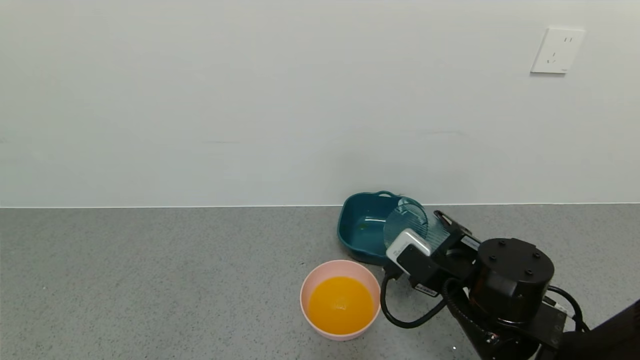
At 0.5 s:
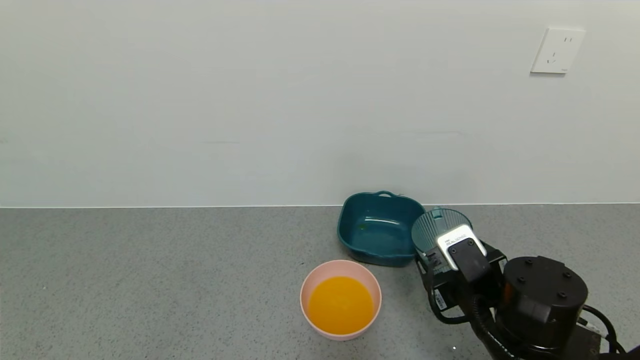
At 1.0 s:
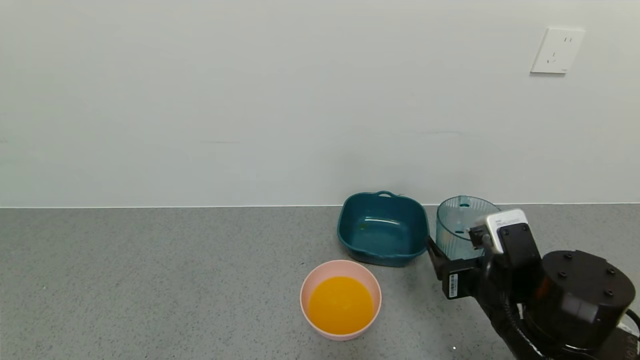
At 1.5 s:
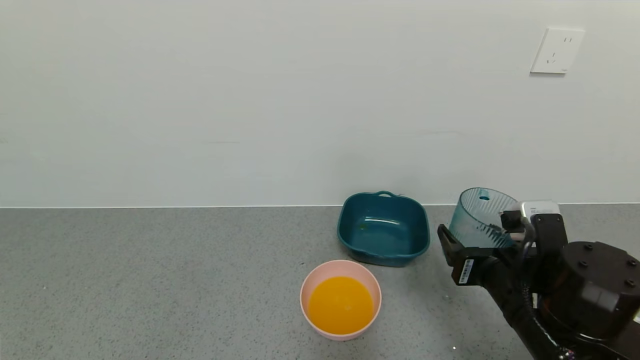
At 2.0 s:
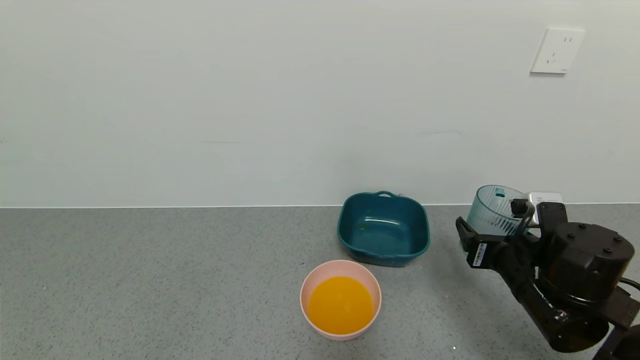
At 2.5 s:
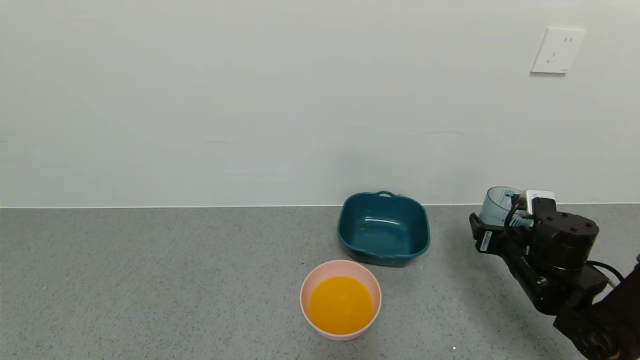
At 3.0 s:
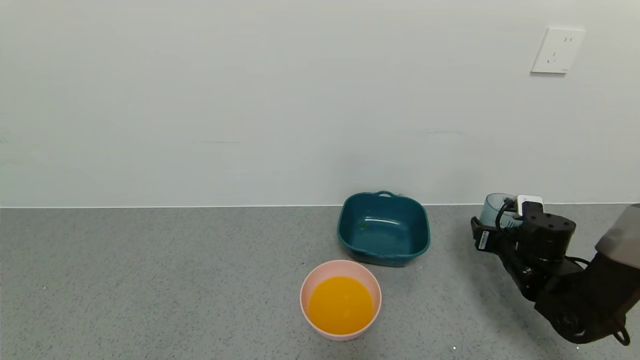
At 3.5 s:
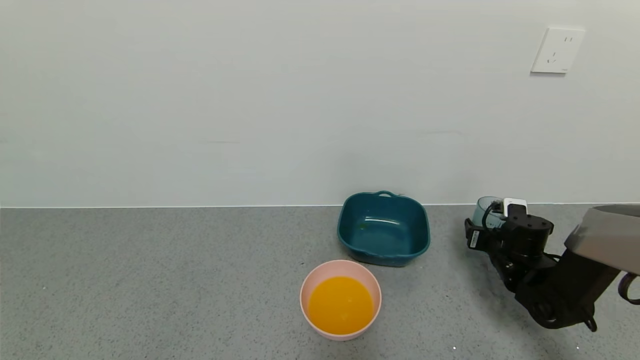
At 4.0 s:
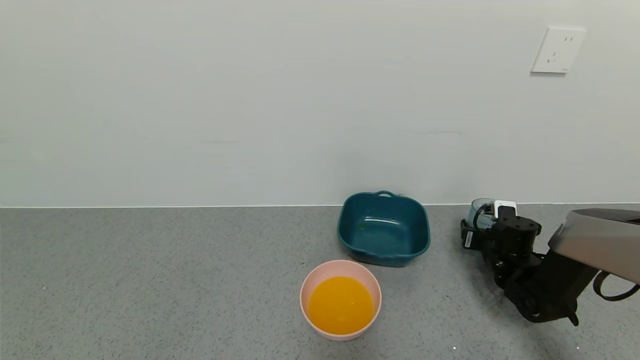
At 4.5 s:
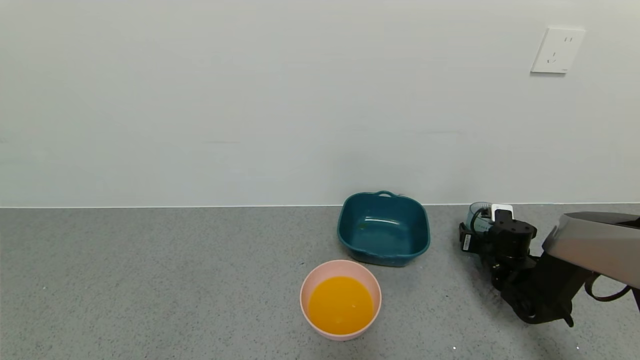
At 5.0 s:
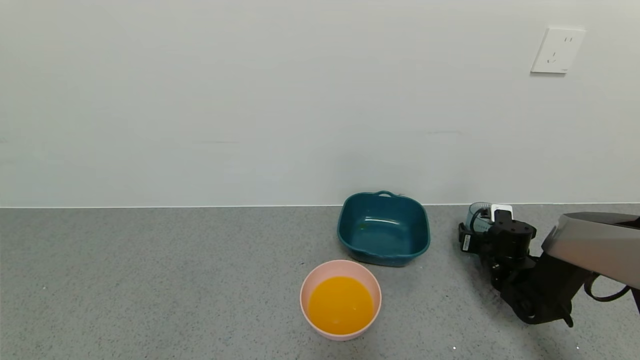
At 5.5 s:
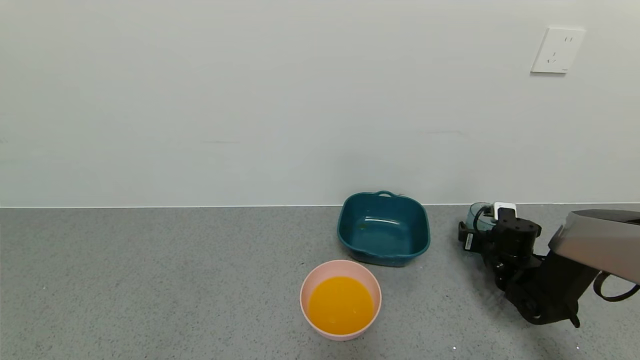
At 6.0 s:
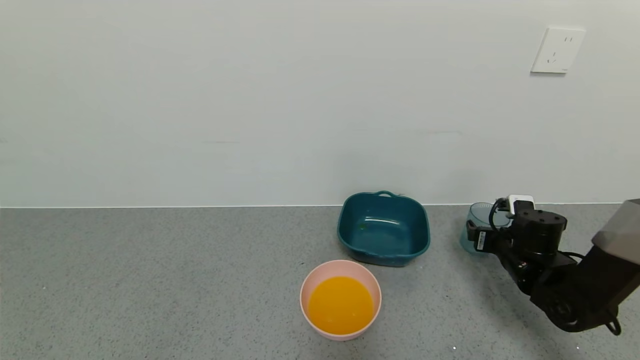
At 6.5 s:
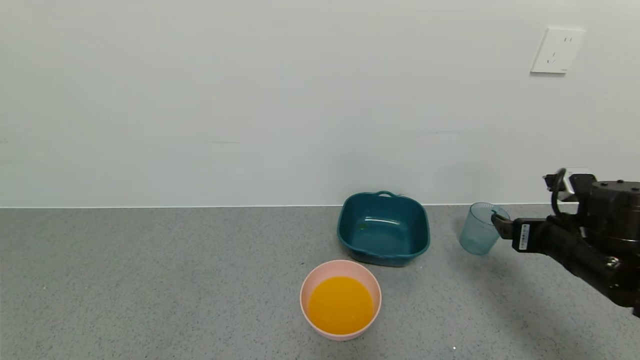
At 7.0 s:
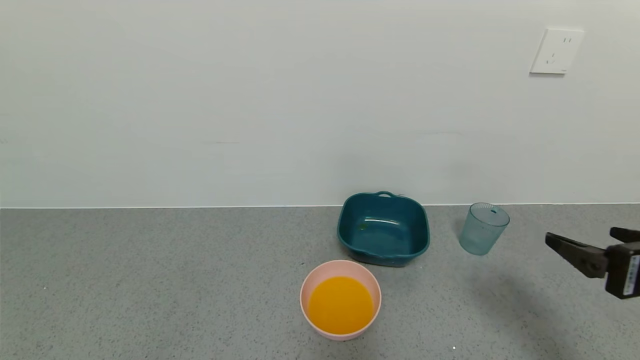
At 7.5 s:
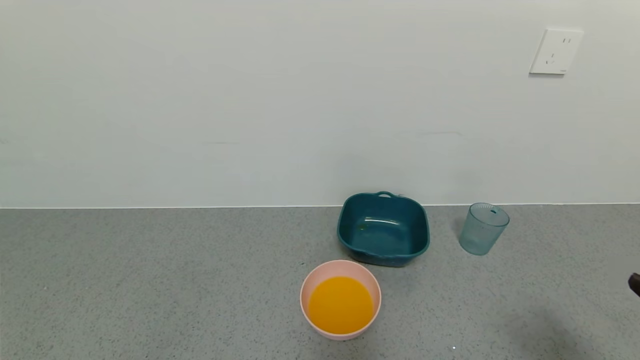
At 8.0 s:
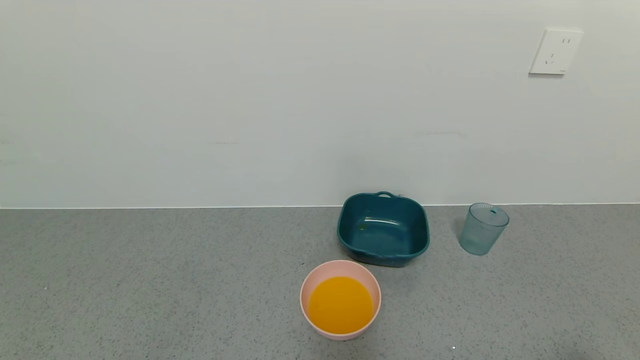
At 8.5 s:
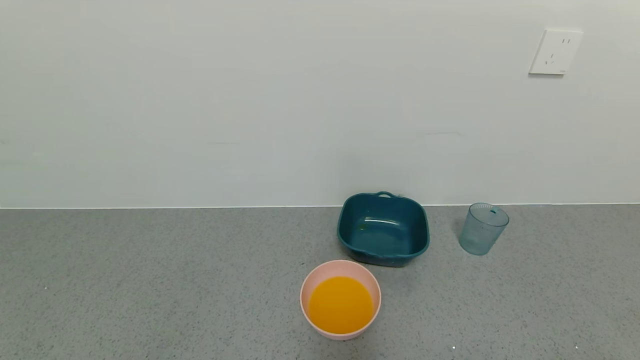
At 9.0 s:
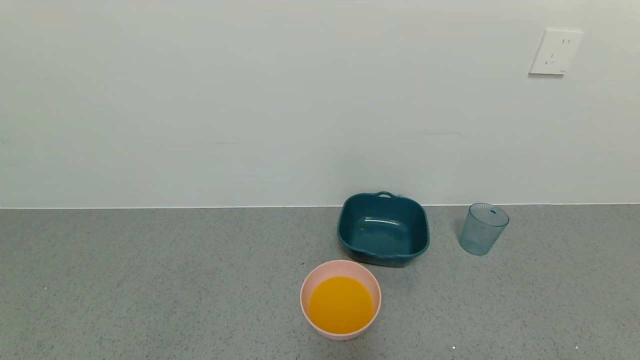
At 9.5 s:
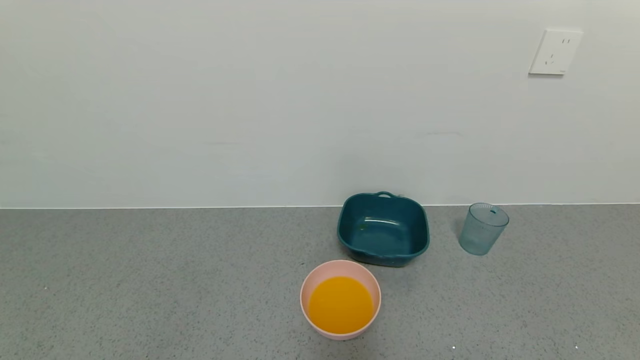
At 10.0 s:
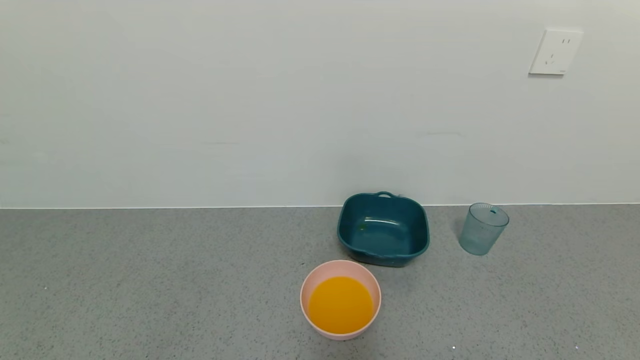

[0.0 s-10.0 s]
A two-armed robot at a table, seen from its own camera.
Task of the whole recording: use a gripper to pick up the cup and pour the liquid into a bowl or tray.
Step, 0.0 to 6.0 s: Place the glass cup with the right gripper.
0.0 to 2.0 s: The right gripper shifts approximately 10 cm to the right.
2.0 to 4.0 s: The right gripper moves forward, downward and to the right, approximately 20 cm.
4.0 to 6.0 s: The right gripper travels upward by some 5 cm, and opens up.
6.0 to 8.0 s: The right gripper goes about 35 cm backward.
